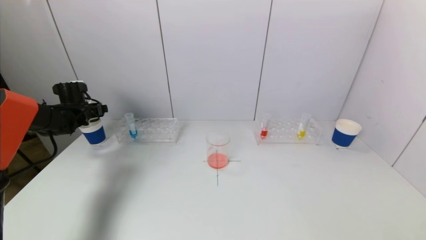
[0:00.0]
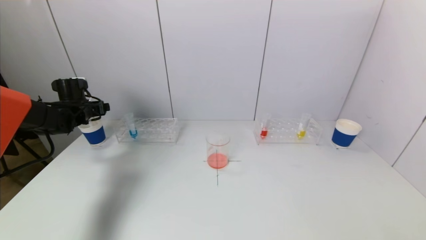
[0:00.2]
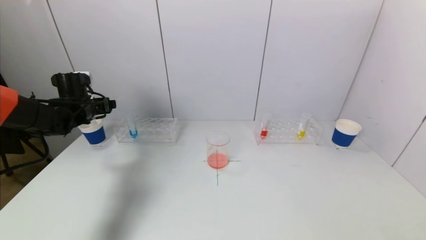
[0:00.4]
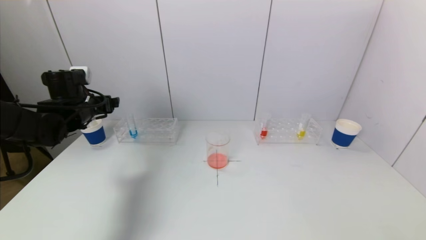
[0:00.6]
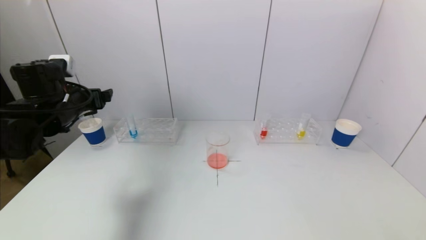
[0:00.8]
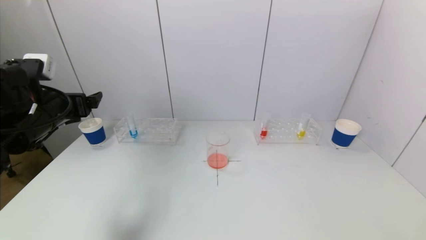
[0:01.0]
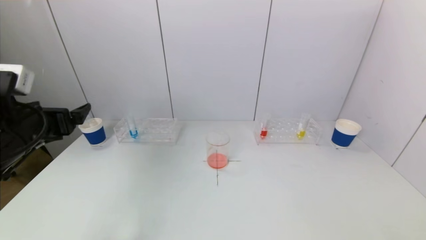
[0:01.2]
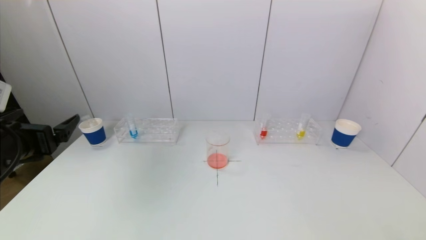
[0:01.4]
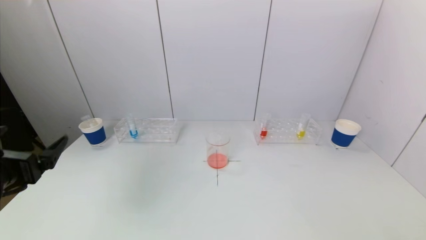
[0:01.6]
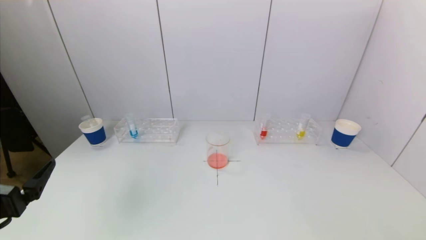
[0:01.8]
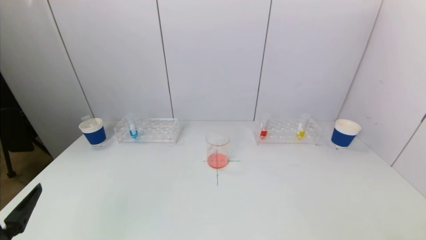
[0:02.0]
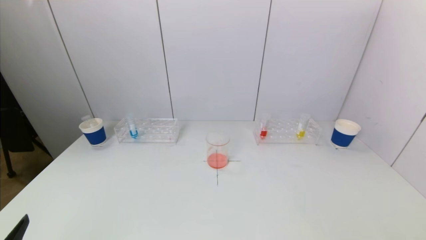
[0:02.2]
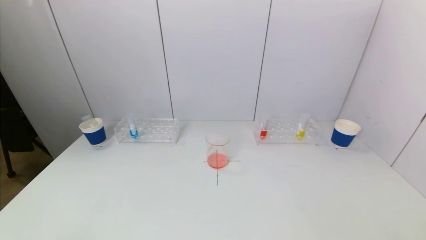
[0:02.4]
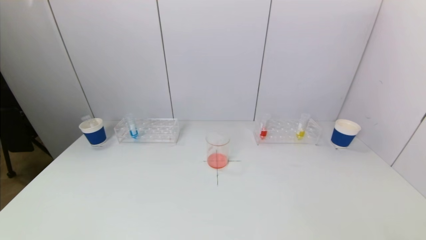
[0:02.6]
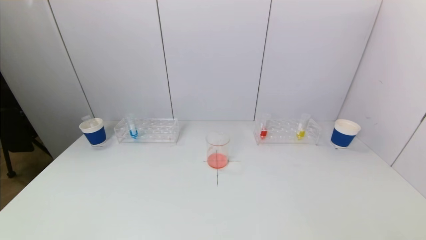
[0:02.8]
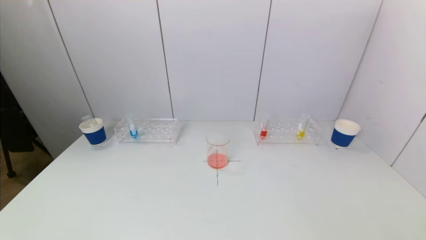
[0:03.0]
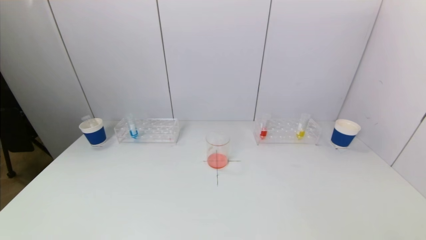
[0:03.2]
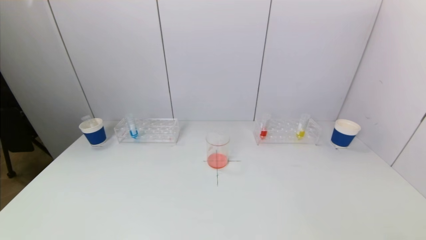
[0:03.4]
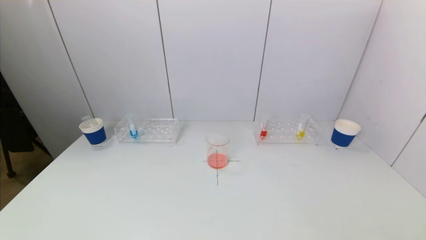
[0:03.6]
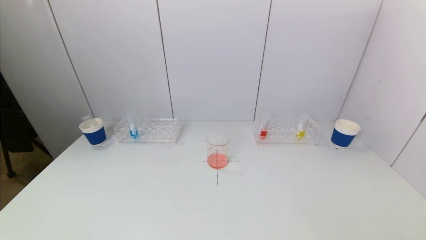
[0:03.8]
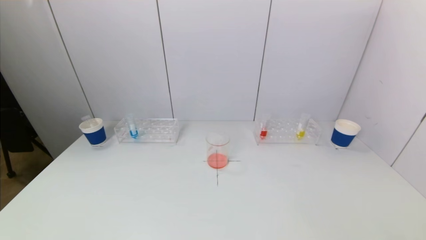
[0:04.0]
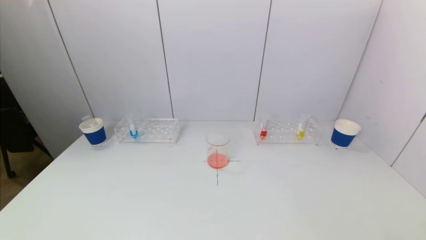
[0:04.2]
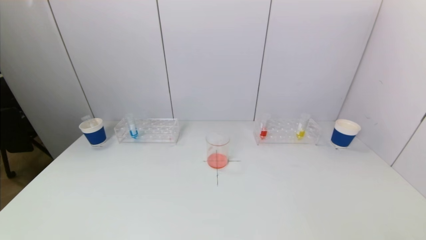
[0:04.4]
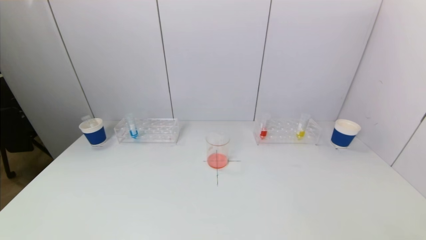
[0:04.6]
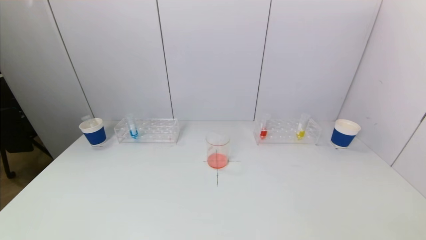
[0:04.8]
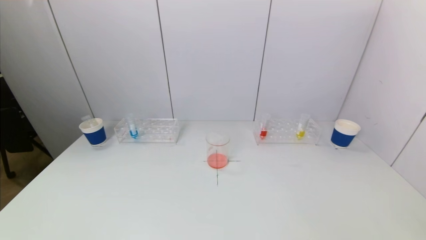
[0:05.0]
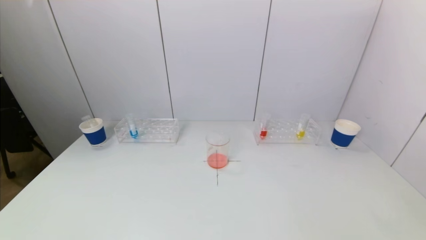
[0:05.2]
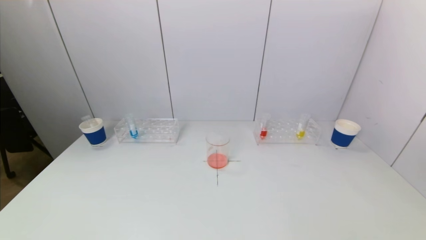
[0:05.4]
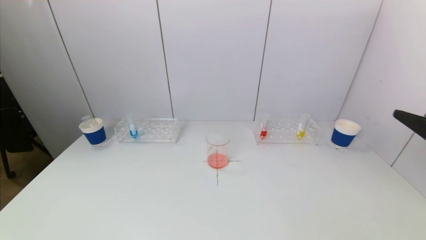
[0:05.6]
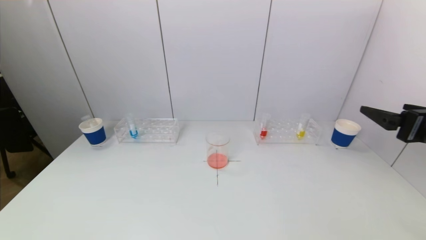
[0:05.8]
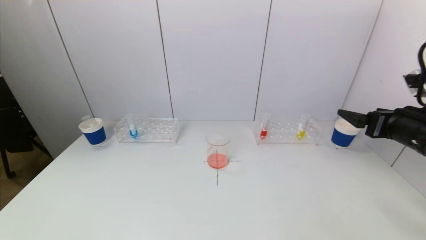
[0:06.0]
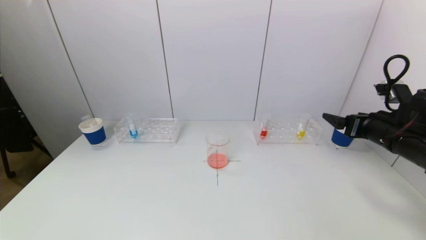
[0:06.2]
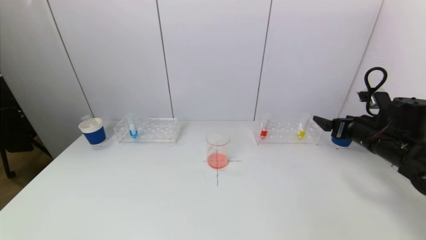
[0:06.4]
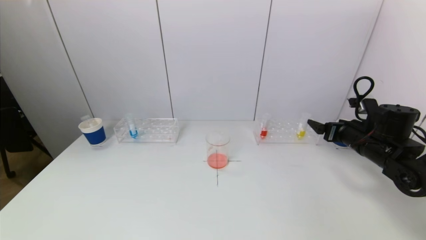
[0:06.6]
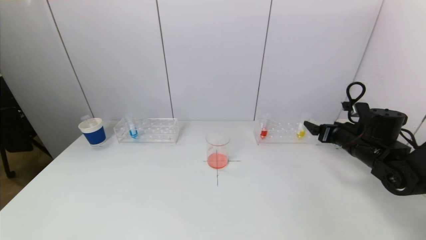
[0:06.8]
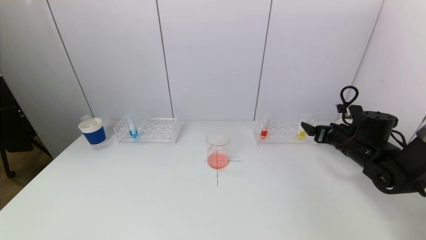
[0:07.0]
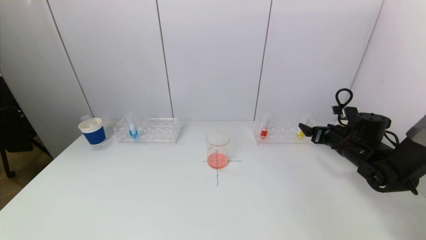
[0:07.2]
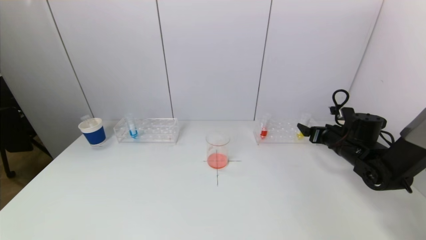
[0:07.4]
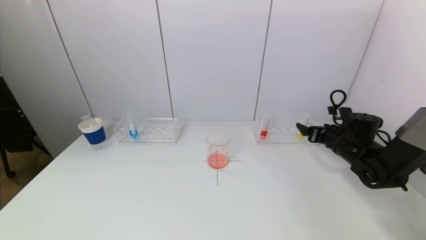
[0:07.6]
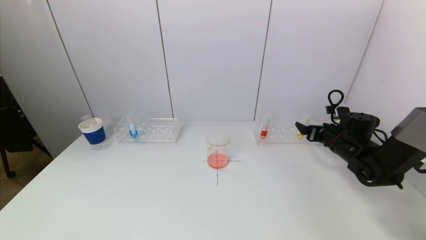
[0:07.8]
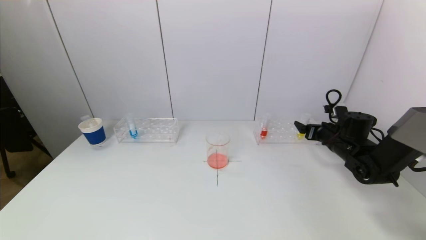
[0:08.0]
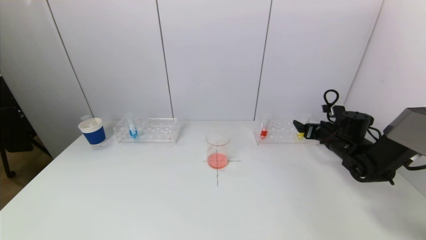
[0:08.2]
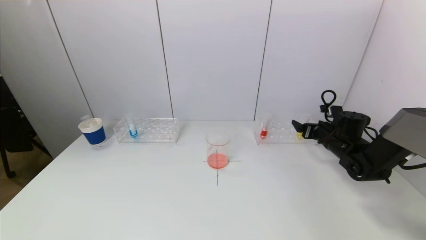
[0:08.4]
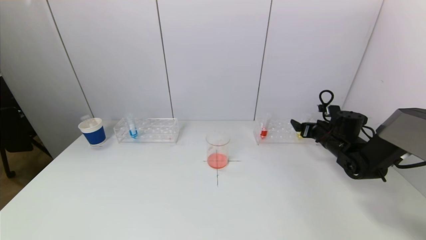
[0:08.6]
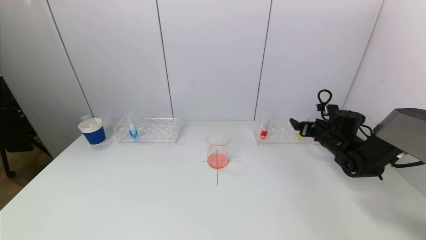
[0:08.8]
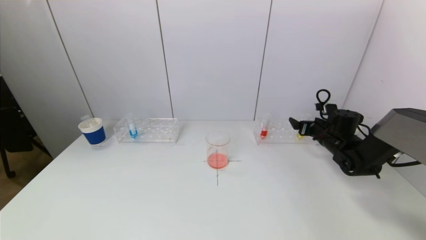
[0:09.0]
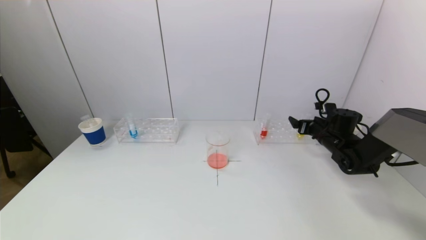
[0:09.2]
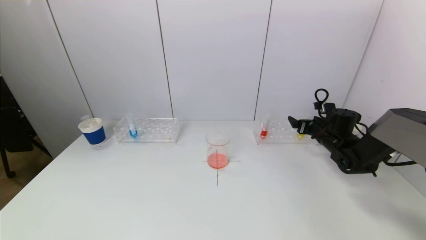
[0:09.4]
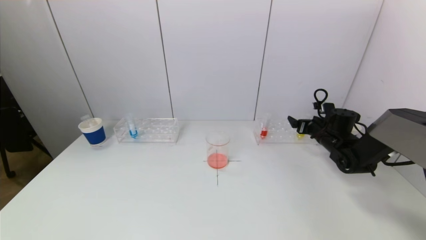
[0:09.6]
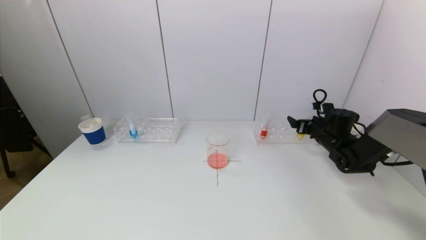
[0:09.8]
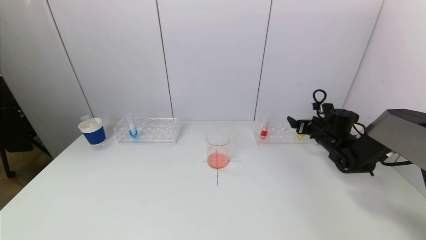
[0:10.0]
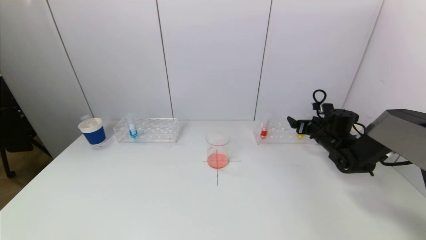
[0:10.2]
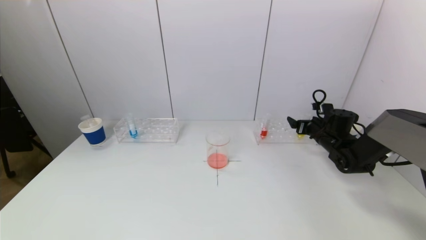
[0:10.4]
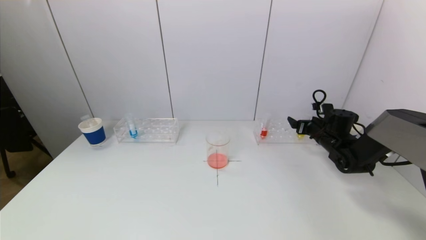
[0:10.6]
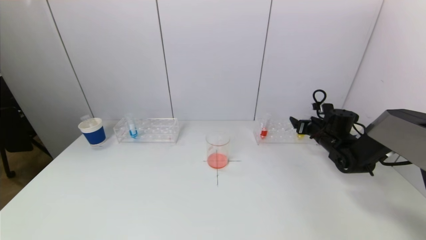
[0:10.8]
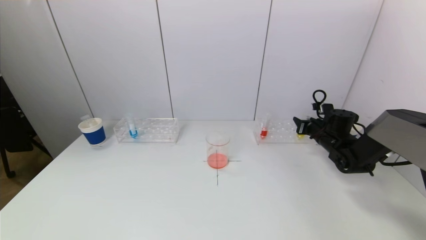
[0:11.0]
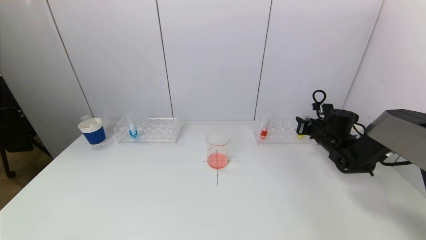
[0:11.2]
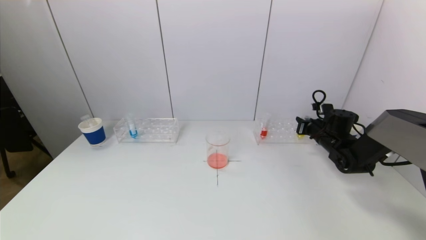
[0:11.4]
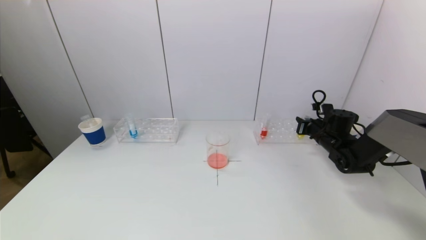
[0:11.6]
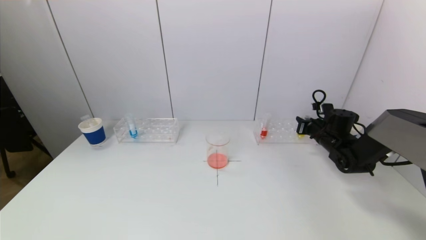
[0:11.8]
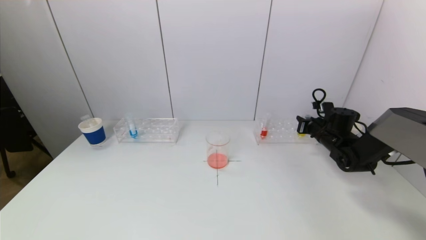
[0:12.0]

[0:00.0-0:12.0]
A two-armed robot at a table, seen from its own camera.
Task of the whole recording: pick up a test tube with pigment on left test tube rack and a test tube with pigment on right test tube rack by grippers and pour them into the beaker.
Step, 0:00.0 to 0:11.6: Grasp the yellow reagent with the right gripper.
0:00.0 to 0:01.6: The left gripper shifts about 35 cm backward.
0:01.6 to 0:03.0: The left gripper shifts approximately 20 cm backward and downward.
0:04.4 to 0:06.0: The right gripper is displaced forward and upward by approximately 30 cm.
0:06.0 to 0:07.6: The right gripper moves forward and downward, approximately 20 cm.
0:07.6 to 0:09.0: The right gripper heads forward, covering some 5 cm.
0:09.0 to 0:10.4: Both grippers stay about where they are.
0:10.4 to 0:12.0: The right gripper closes its fingers.

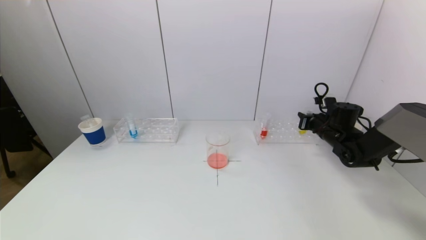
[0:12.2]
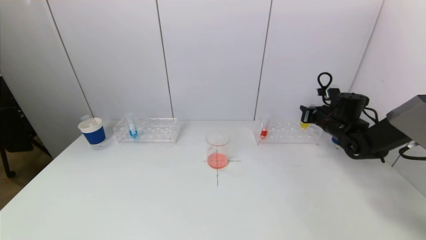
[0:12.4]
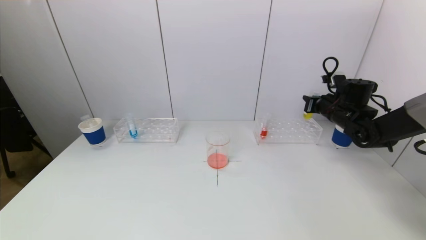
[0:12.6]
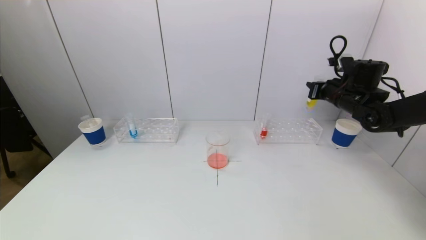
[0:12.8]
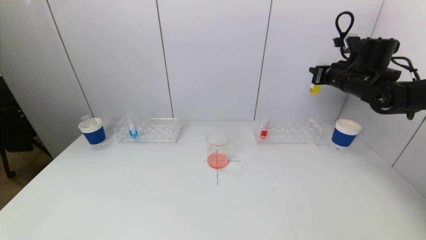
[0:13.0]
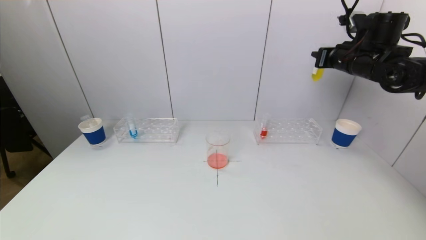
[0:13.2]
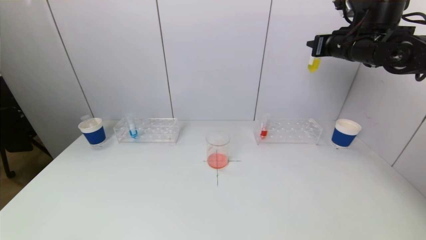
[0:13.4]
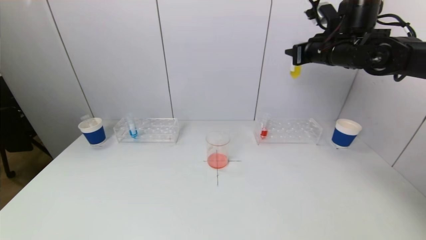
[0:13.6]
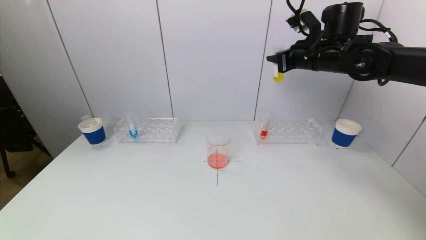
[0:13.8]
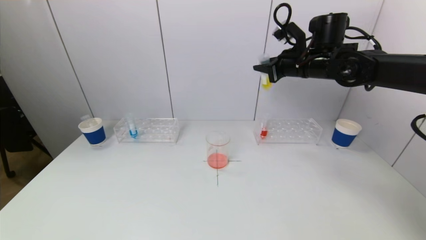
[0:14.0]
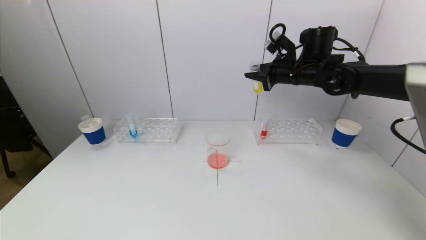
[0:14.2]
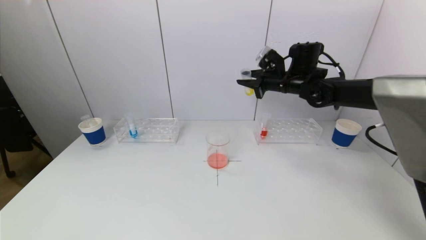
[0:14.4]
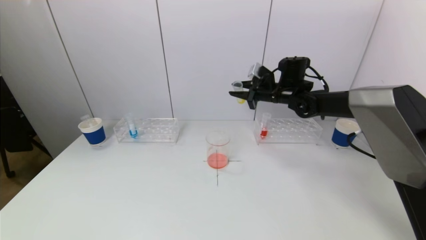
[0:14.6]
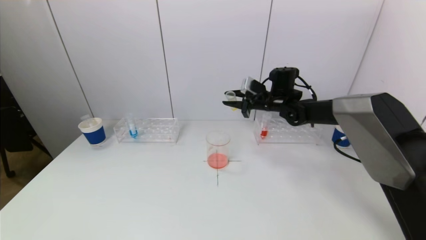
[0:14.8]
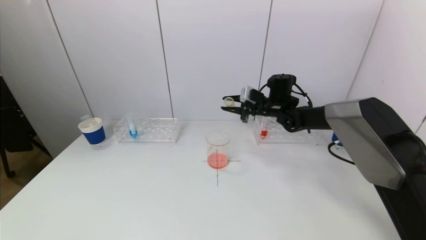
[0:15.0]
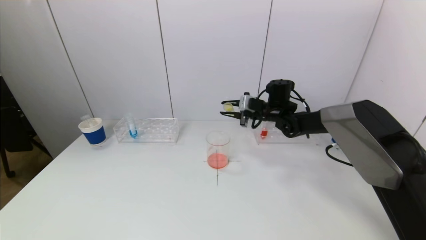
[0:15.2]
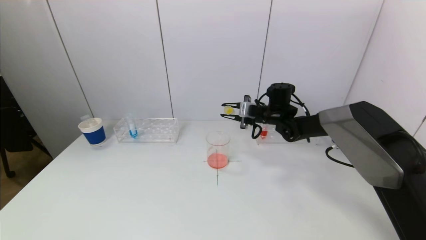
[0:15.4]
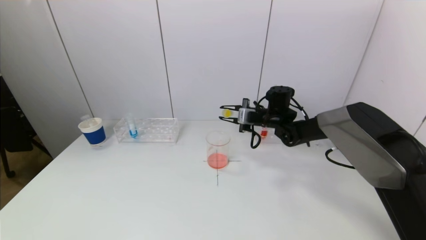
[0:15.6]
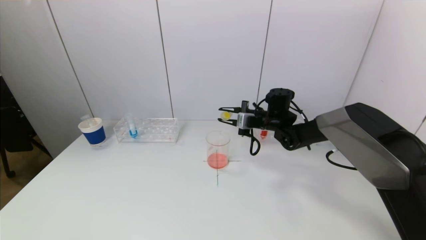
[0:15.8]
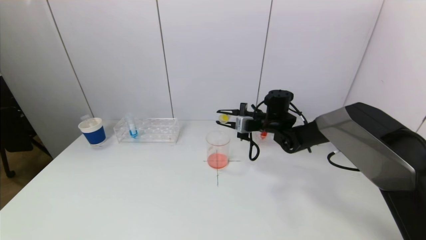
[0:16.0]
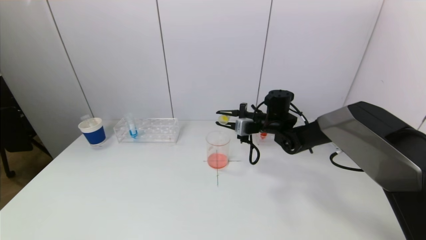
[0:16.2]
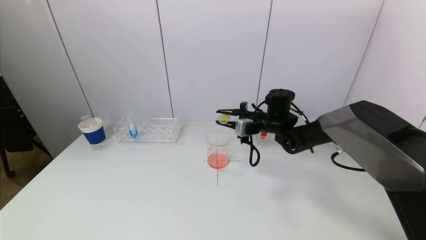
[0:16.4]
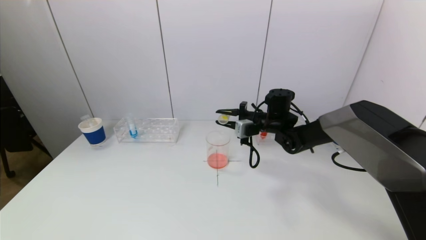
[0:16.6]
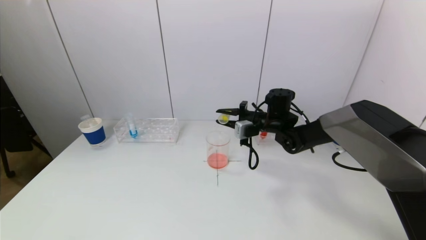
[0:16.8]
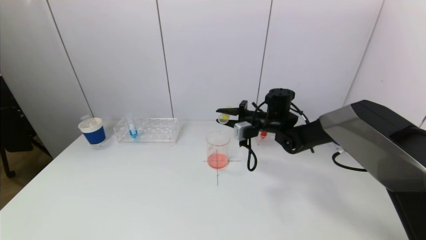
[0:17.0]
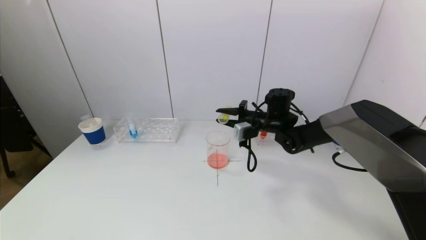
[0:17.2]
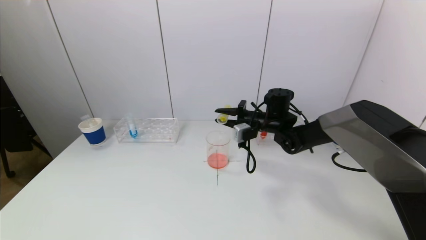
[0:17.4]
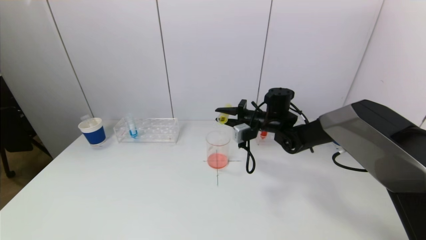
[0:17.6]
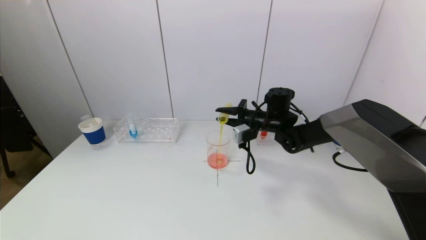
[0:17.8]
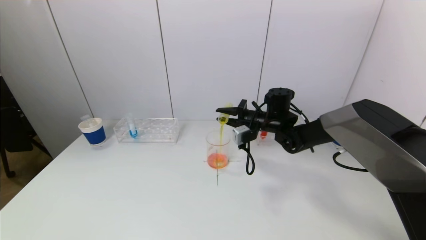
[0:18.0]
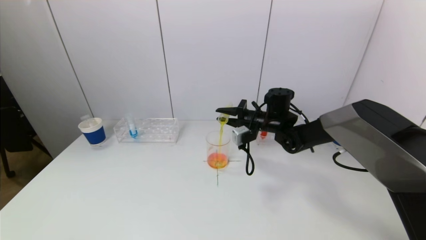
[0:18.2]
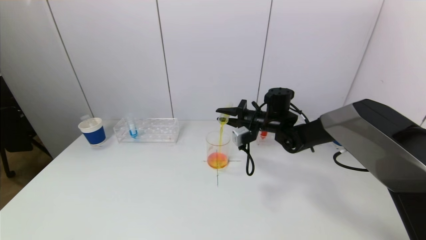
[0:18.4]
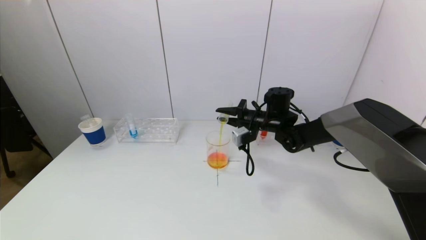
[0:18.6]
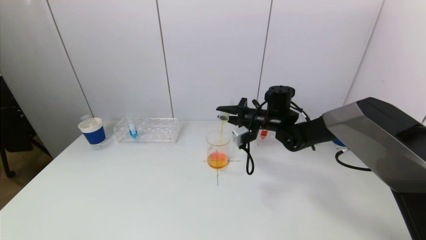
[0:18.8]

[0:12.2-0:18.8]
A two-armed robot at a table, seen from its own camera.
Task of the whole recording: pick up a test tube with pigment on left test tube rack and a test tube with pigment on right test tube rack by grippers and pour them into the beaker.
0:12.2 to 0:13.8: The right gripper travels upward and to the left by about 25 cm.
0:13.8 to 0:15.4: The right gripper is displaced downward by about 20 cm.
0:17.2 to 0:18.8: The grippers stay close to where they were, moving slightly.
